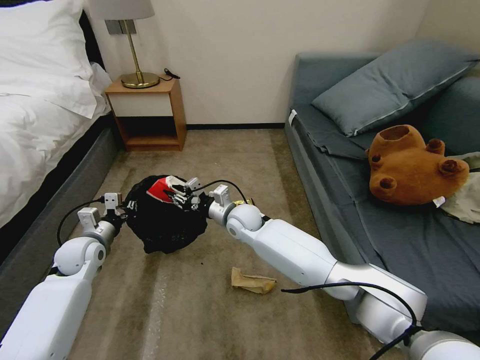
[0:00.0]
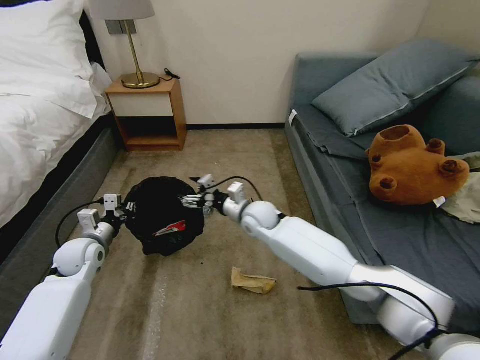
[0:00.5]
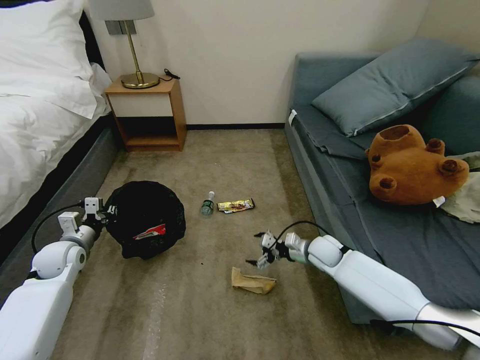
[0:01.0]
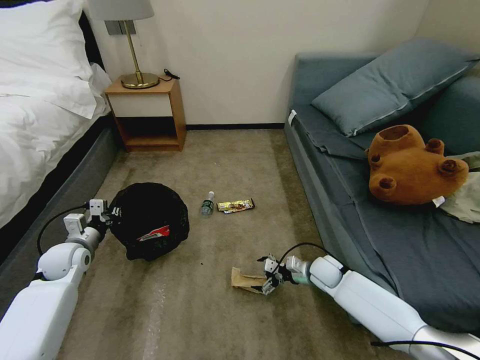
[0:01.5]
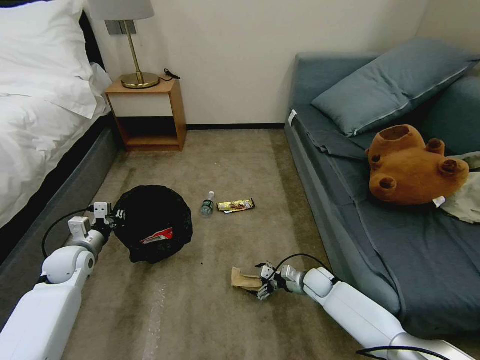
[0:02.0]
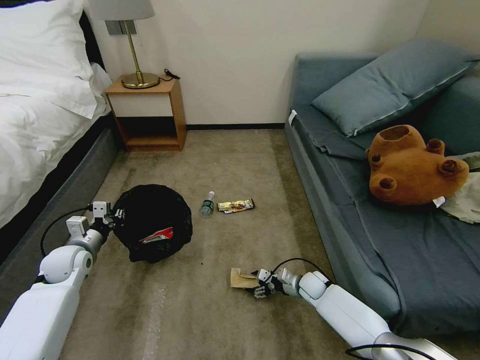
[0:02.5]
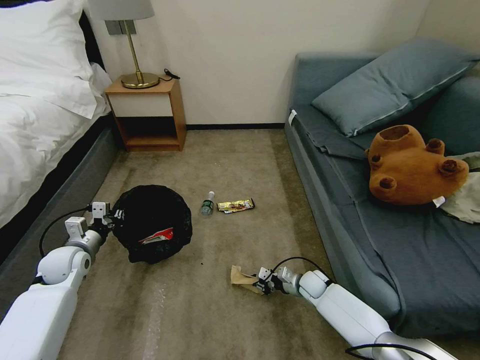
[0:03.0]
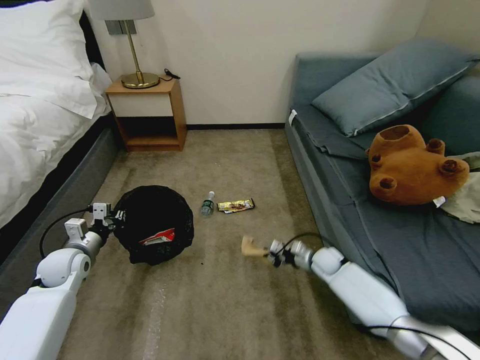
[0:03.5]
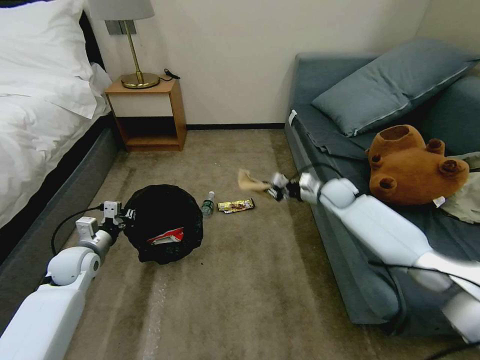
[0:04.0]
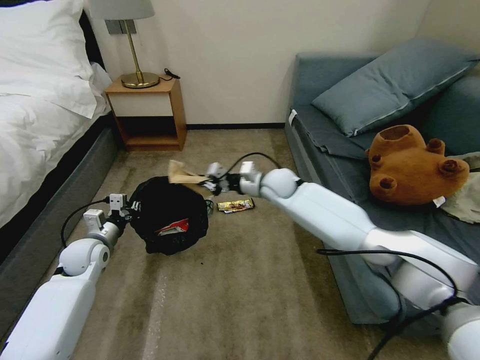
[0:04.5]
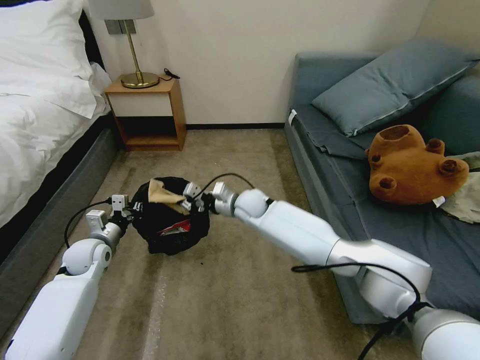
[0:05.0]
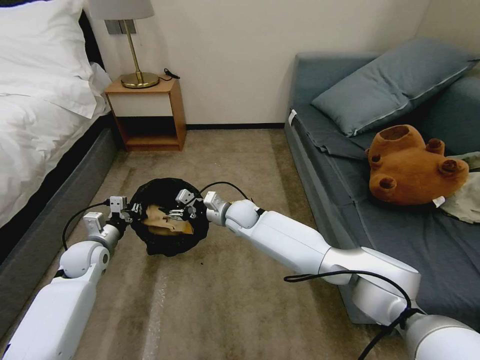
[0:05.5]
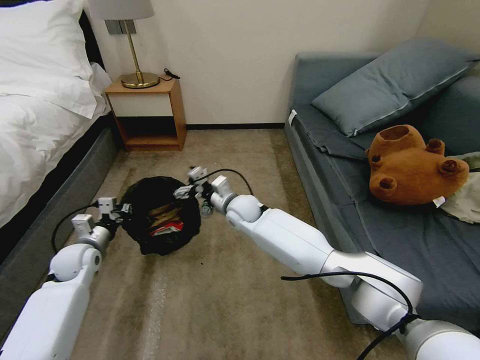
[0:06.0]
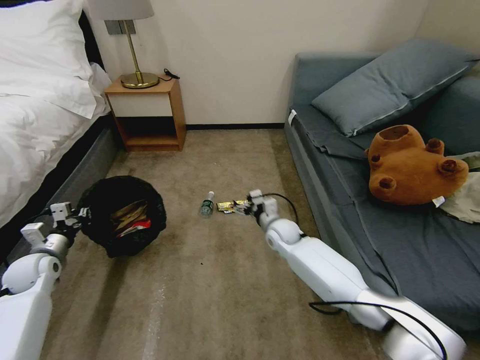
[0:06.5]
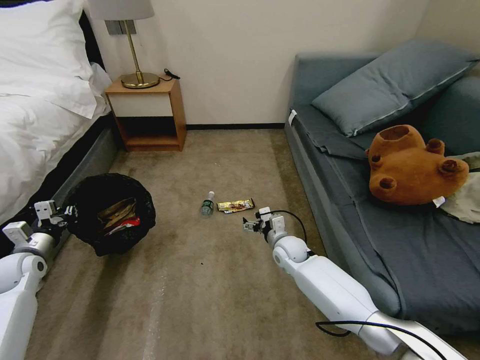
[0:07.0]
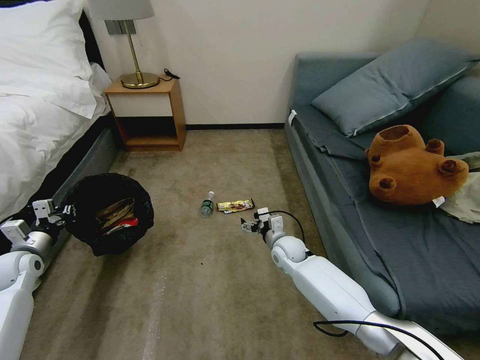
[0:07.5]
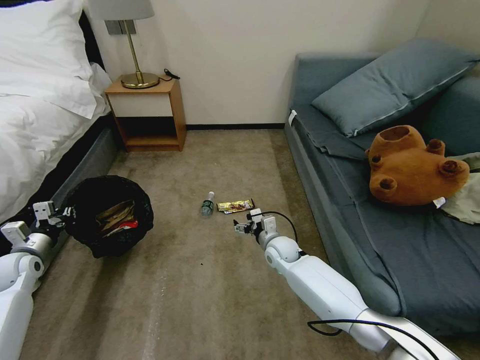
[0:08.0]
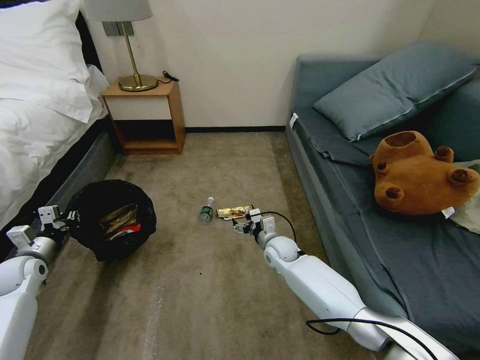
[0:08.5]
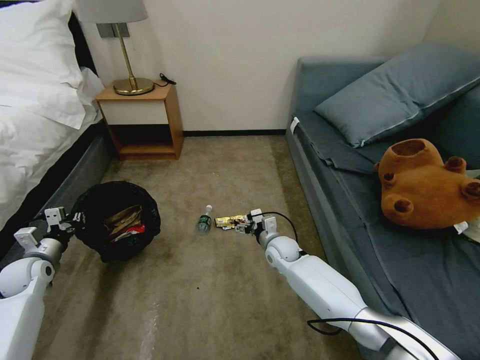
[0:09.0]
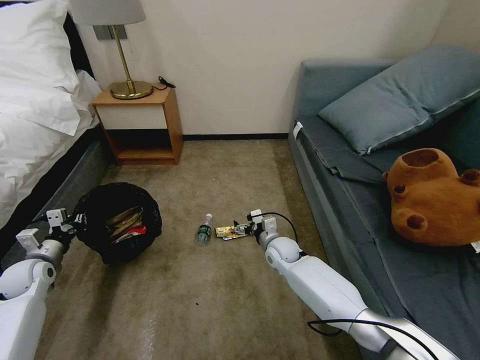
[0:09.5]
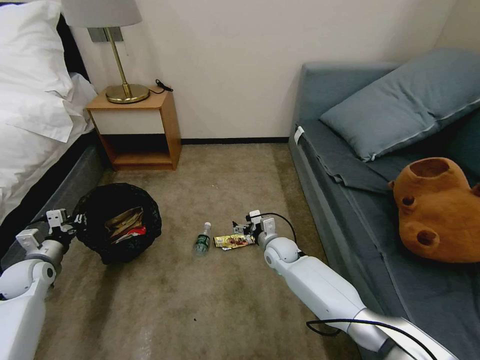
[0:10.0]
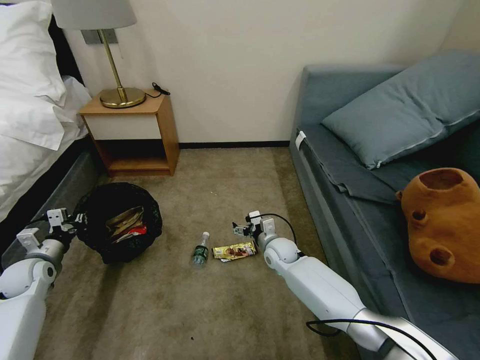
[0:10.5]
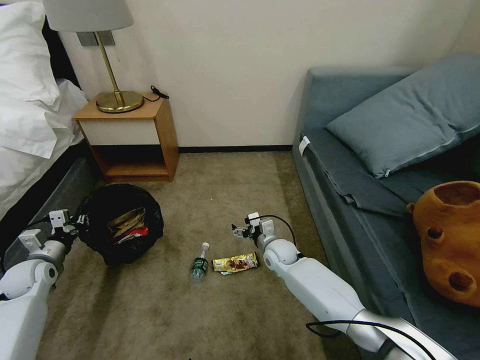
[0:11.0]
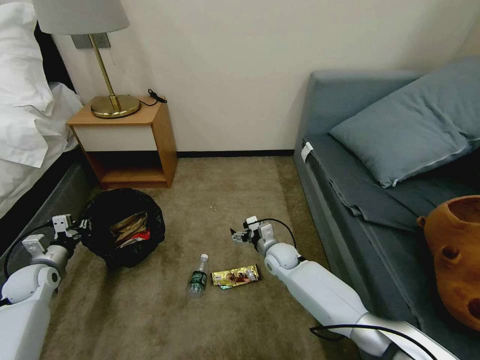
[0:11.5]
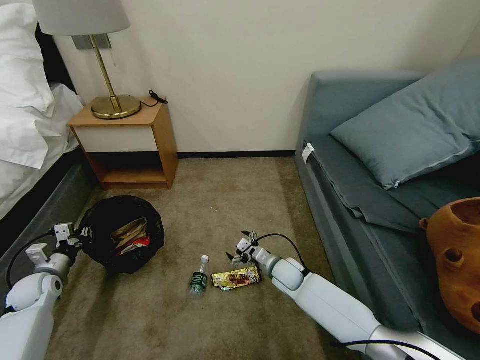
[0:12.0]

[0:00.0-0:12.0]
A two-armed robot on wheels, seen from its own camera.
Task of the whole recording: Pick up the trash bin, then pick up the garbage on the floor and place it into the trash bin.
0:00.0 to 0:02.0: The right gripper moves to the right and downward, some 30 cm, and opens up.
0:02.0 to 0:04.0: The right gripper heads upward and forward, covering some 30 cm, and closes its fingers.
0:04.0 to 0:06.0: The right gripper is displaced to the left by some 30 cm, and opens up.
0:06.0 to 0:08.0: The right gripper goes about 20 cm downward, to the right and backward, while the left gripper travels to the left by roughly 15 cm.
0:10.0 to 0:12.0: The right gripper is displaced backward by approximately 5 cm.

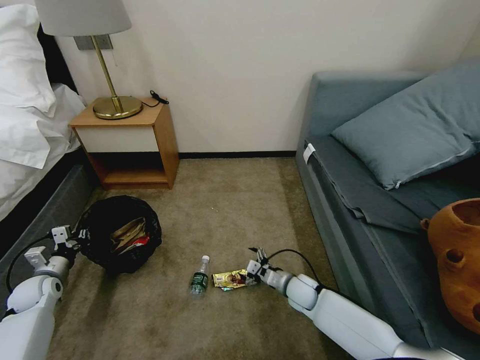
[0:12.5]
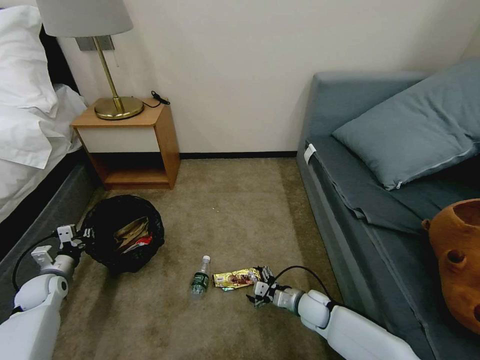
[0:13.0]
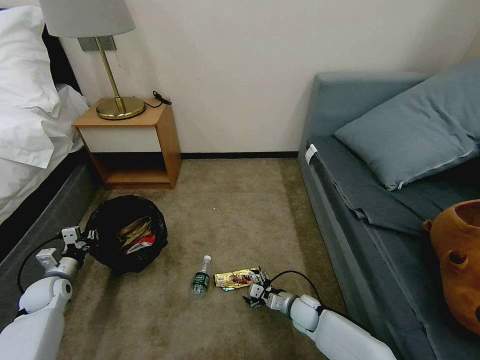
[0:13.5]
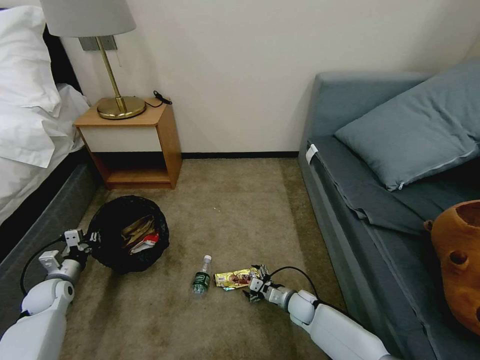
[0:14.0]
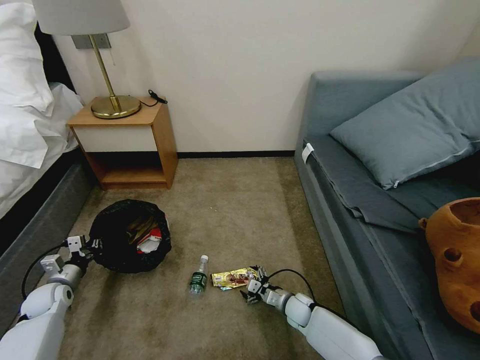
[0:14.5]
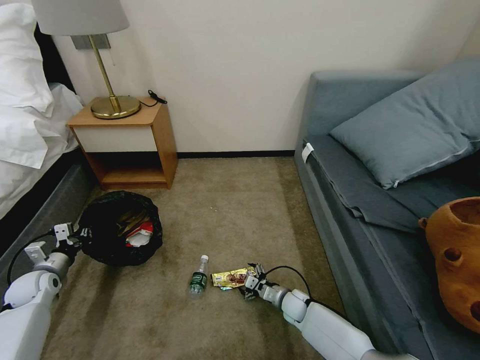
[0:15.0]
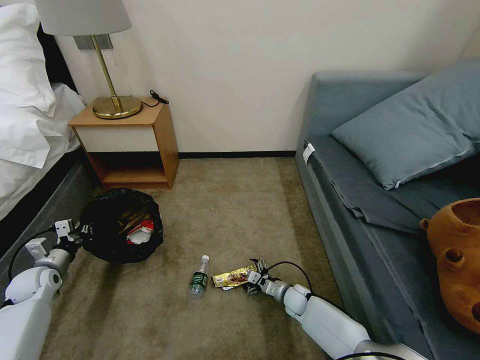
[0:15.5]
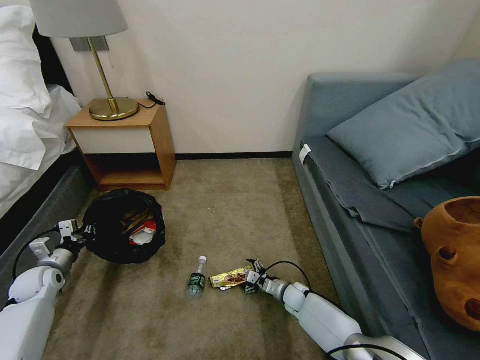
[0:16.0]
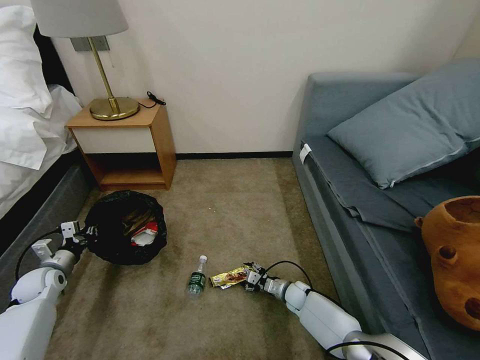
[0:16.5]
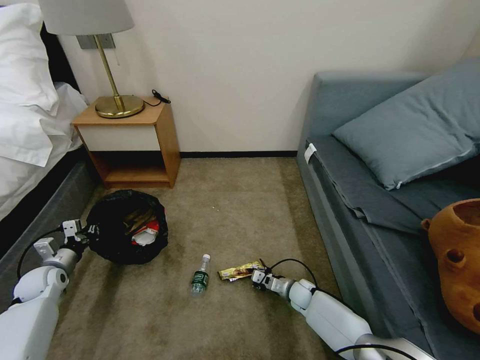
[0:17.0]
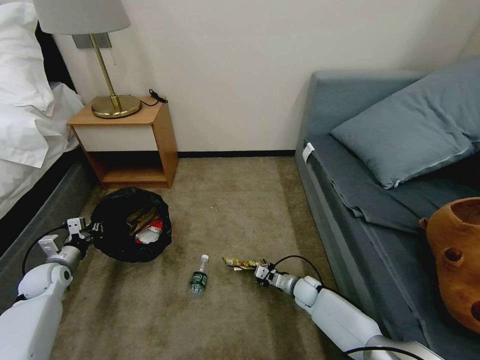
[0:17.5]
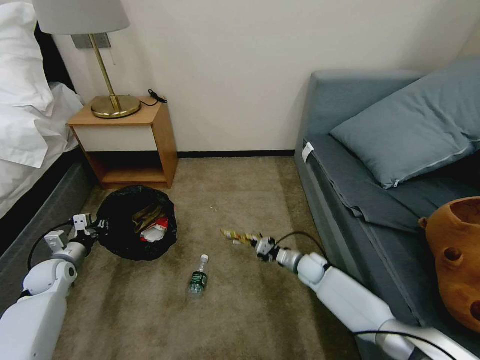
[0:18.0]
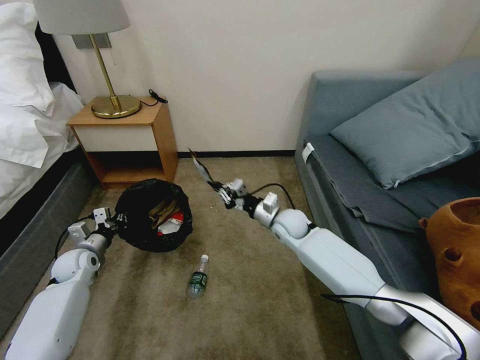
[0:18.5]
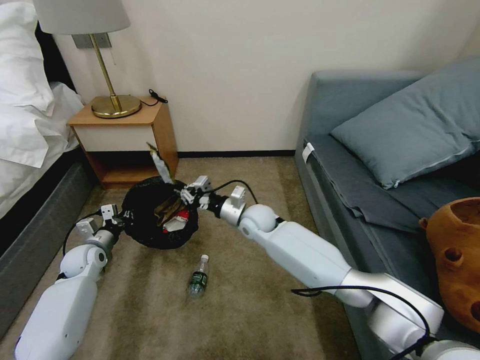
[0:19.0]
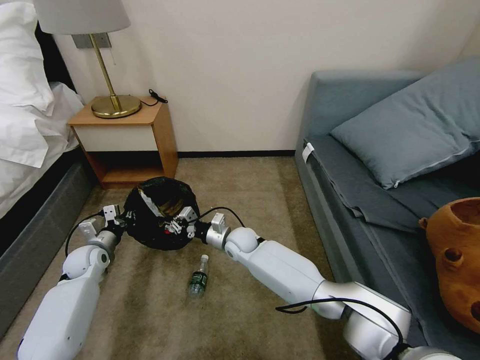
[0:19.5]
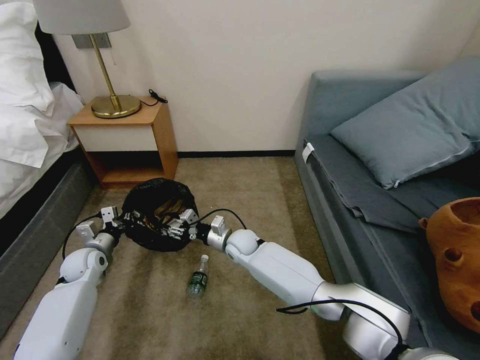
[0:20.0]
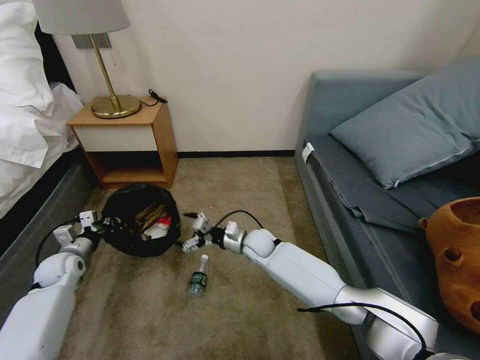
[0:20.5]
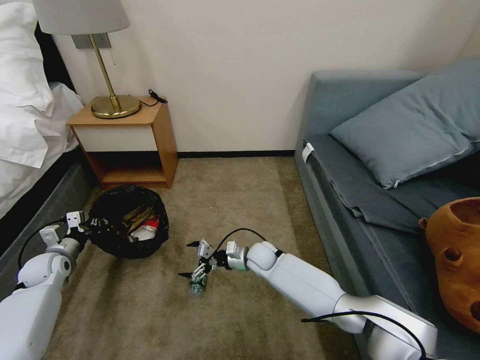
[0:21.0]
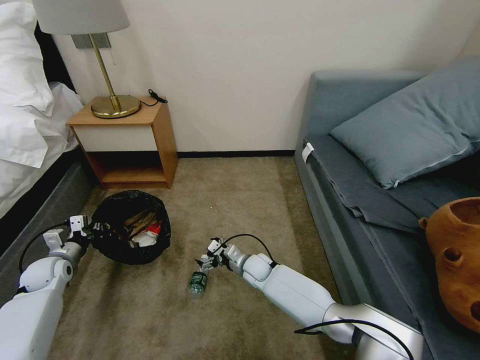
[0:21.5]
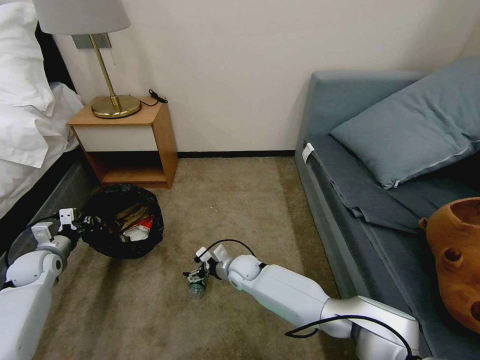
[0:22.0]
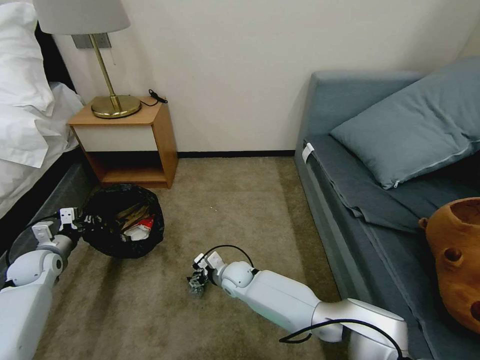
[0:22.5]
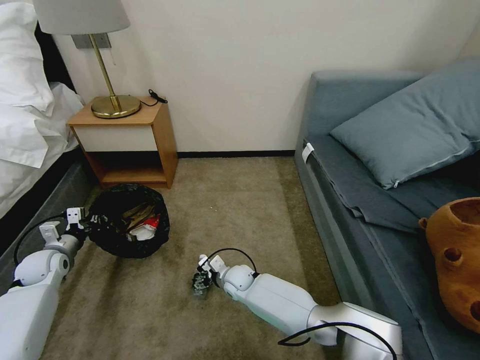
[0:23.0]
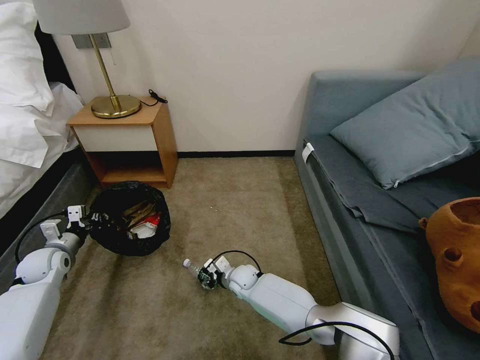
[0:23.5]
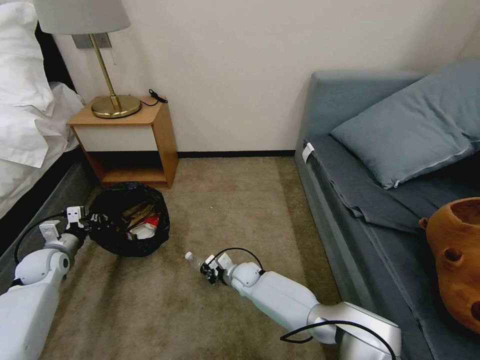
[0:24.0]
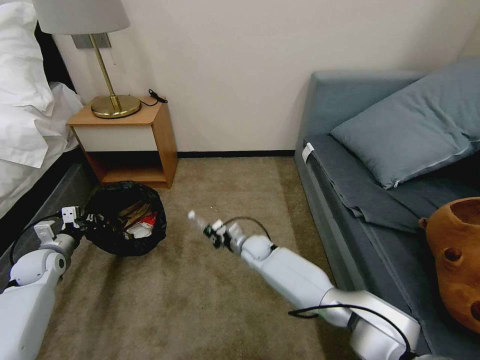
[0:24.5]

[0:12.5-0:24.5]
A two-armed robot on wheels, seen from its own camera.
Task of the whole recording: Pick up the trash bin, then pick up the garbage on the floor and place it into the trash bin.
0:12.5 to 0:14.5: The right gripper heads downward, covering approximately 10 cm.
0:14.5 to 0:16.5: The right gripper shifts by roughly 5 cm.
0:16.5 to 0:18.5: The left gripper heads to the right, covering about 5 cm; the right gripper goes about 25 cm upward and forward, and closes up.
0:18.5 to 0:20.5: The right gripper travels to the left by some 10 cm, and opens.
0:20.5 to 0:22.5: The right gripper goes approximately 10 cm downward, backward and to the left. The left gripper shifts by some 5 cm.
0:22.5 to 0:24.5: The right gripper travels forward and to the right by about 10 cm, and closes up.

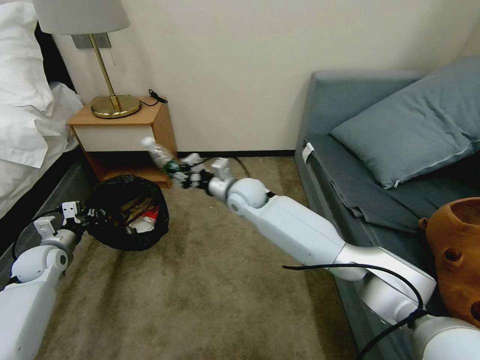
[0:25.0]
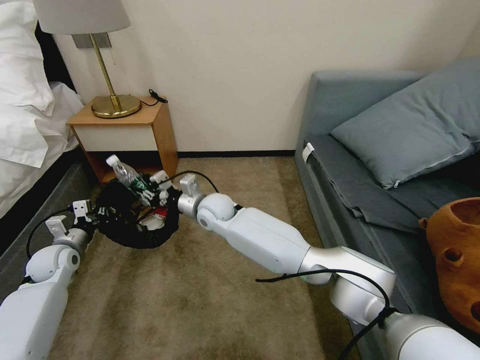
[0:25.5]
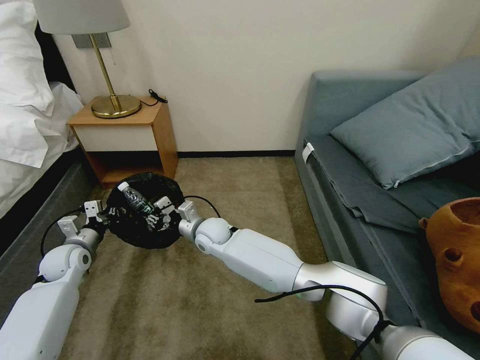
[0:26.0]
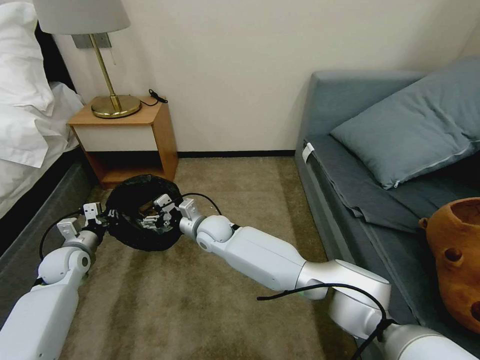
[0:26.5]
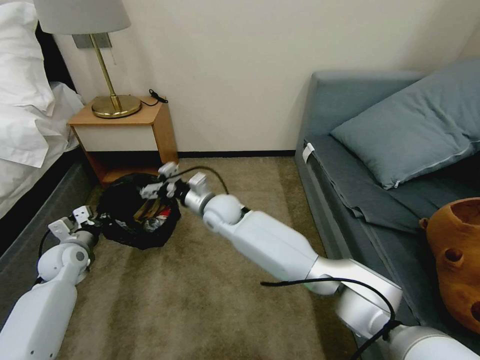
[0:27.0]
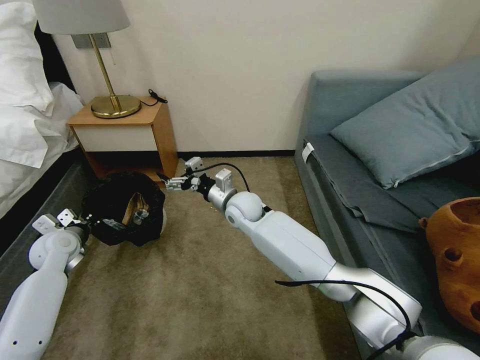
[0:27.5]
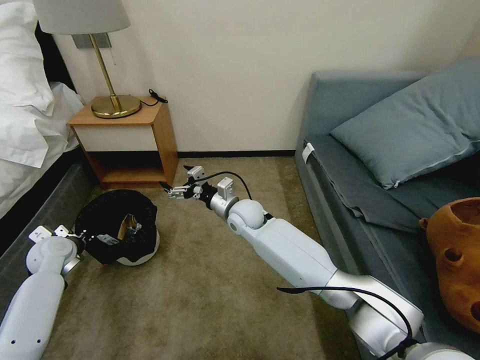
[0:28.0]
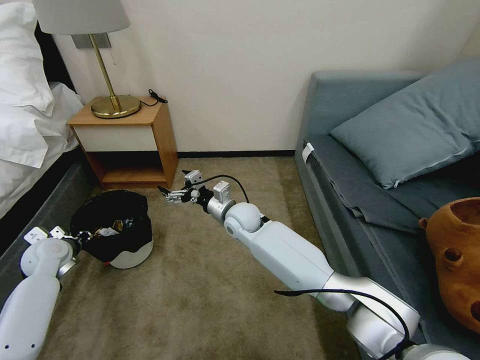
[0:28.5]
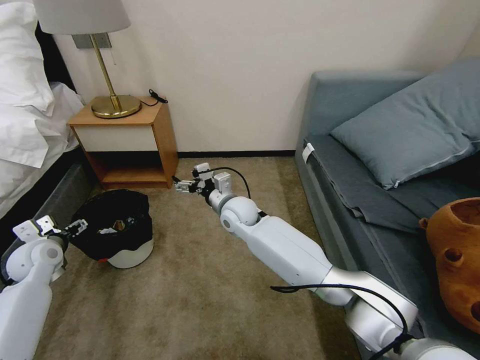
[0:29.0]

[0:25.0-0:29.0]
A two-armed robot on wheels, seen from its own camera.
Task of the whole recording: Pick up the trash bin, then pick up the garbage on the floor and place it into the trash bin.
0:25.0 to 0:27.0: The left gripper heads to the right, covering some 5 cm, while the right gripper travels to the left and downward by some 10 cm, and opens its fingers.
0:27.0 to 0:29.0: The right gripper is displaced to the right by some 5 cm; the left gripper moves about 5 cm, and opens up.
